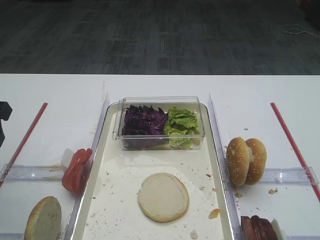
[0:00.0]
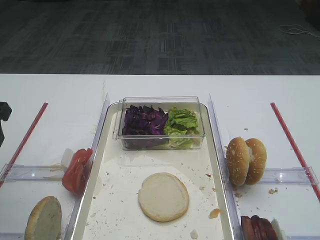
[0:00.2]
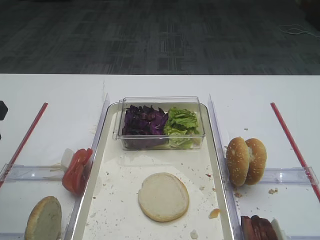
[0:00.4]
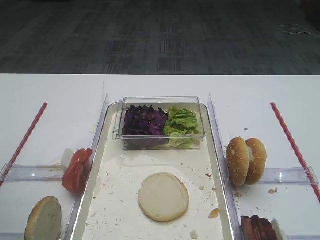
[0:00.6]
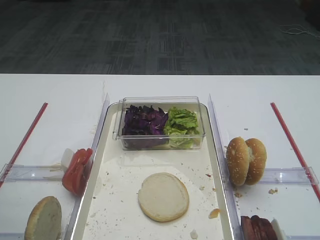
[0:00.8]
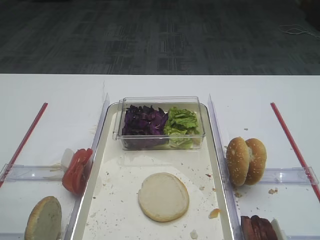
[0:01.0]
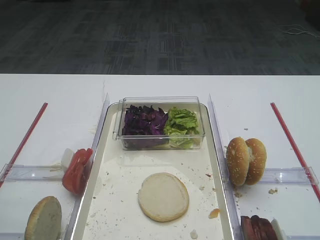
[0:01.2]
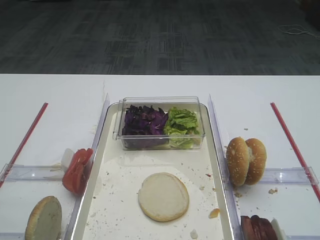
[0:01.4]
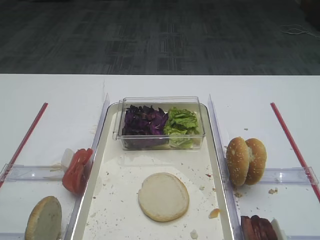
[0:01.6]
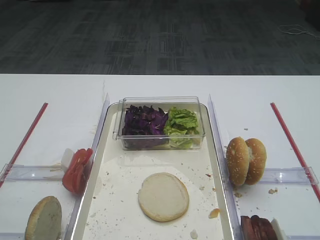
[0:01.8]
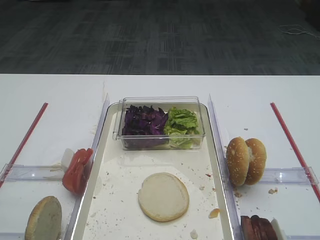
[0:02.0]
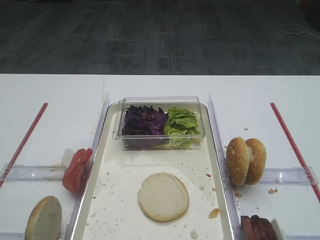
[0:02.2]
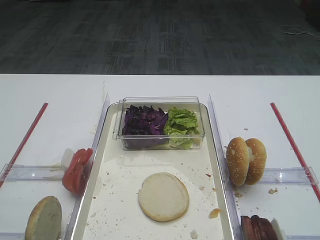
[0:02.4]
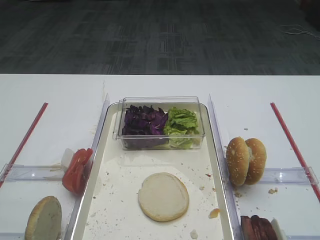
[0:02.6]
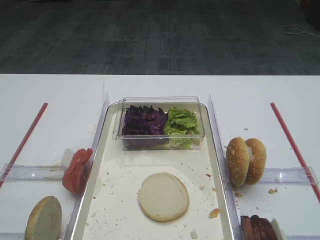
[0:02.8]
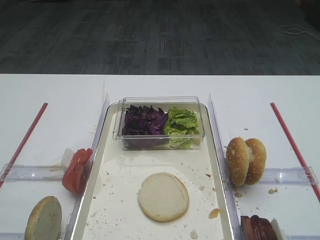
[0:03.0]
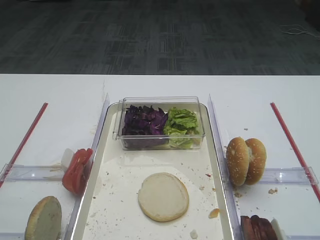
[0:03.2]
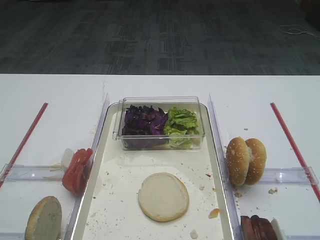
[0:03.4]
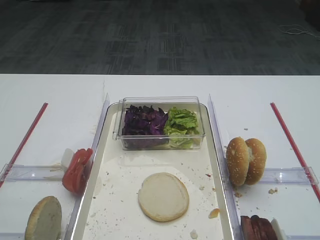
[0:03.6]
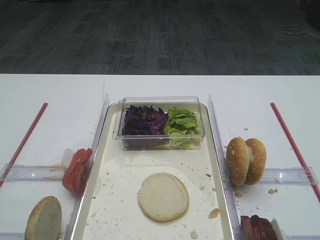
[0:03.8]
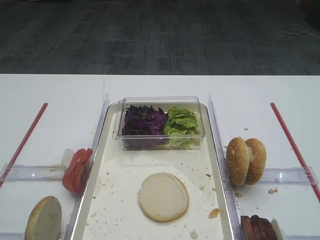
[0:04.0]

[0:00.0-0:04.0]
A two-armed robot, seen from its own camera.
0:00.0 to 0:01.4: The left gripper is displaced backward by about 15 cm.
0:02.6 to 0:04.0: Both grippers stay about where they are.

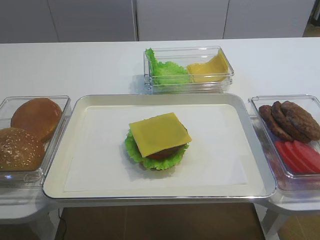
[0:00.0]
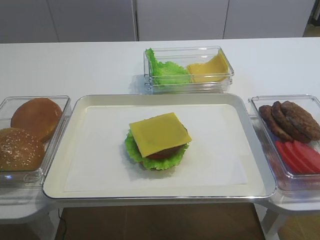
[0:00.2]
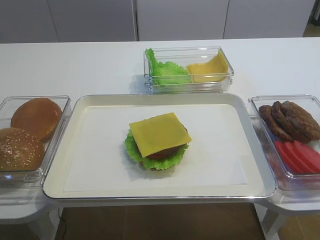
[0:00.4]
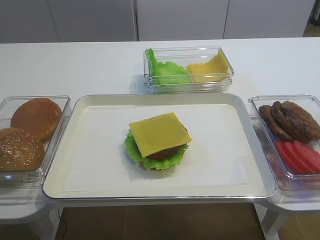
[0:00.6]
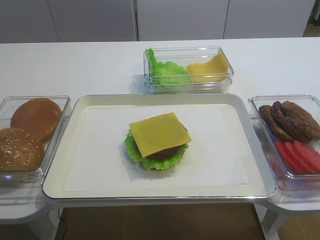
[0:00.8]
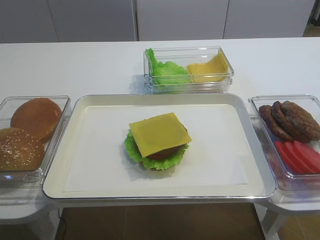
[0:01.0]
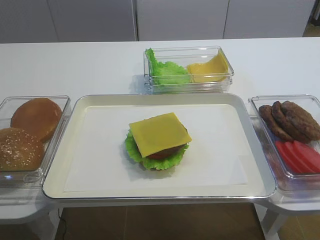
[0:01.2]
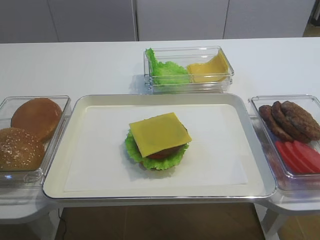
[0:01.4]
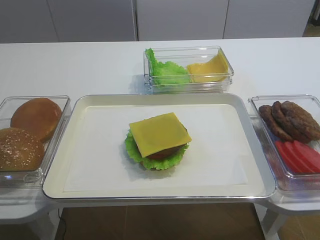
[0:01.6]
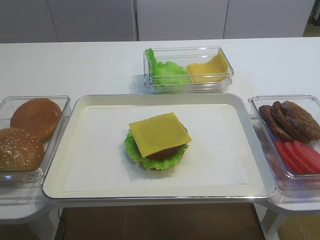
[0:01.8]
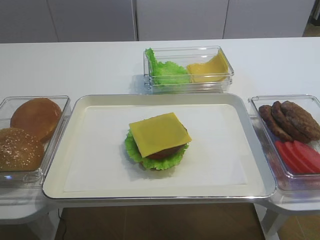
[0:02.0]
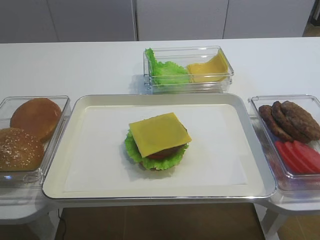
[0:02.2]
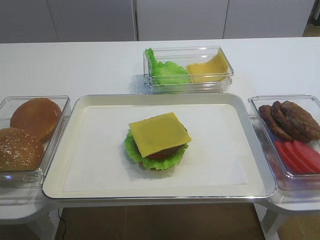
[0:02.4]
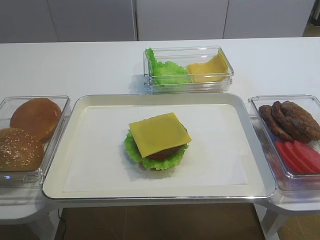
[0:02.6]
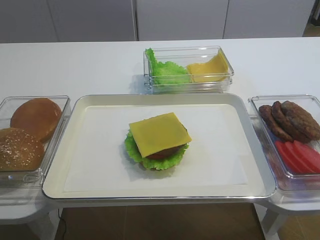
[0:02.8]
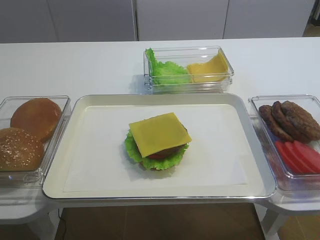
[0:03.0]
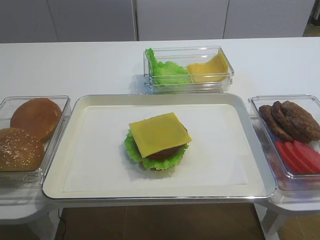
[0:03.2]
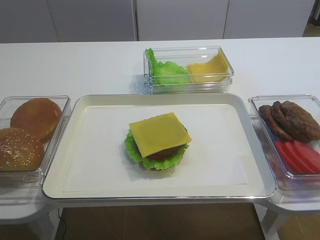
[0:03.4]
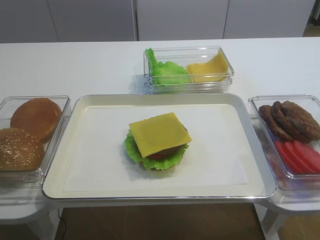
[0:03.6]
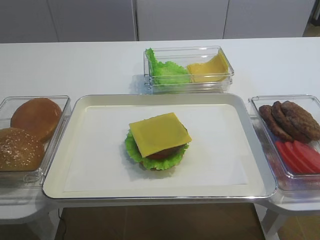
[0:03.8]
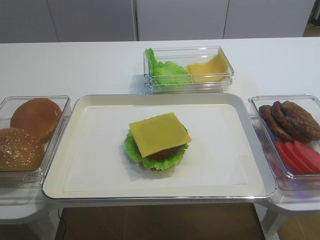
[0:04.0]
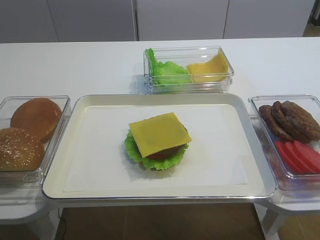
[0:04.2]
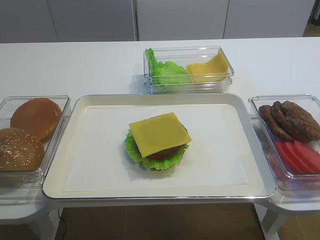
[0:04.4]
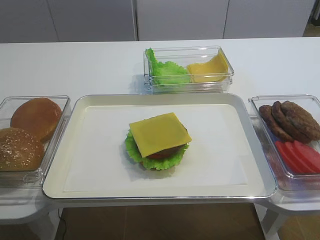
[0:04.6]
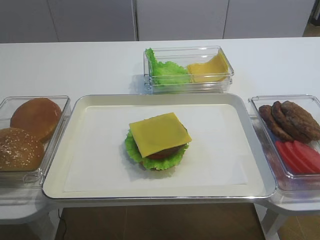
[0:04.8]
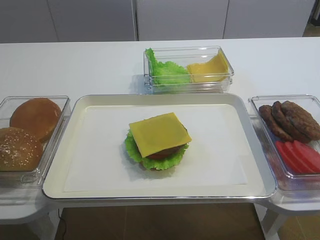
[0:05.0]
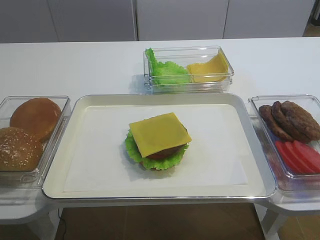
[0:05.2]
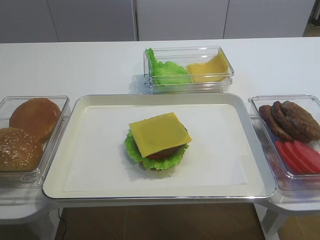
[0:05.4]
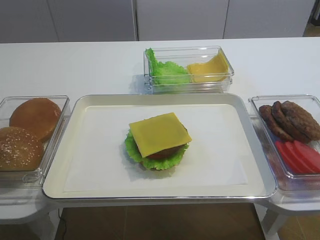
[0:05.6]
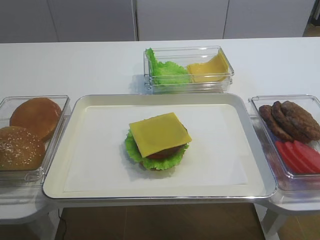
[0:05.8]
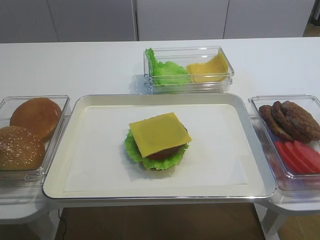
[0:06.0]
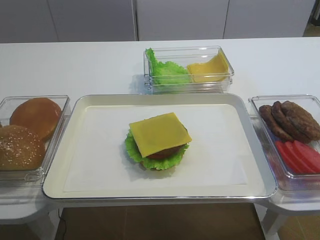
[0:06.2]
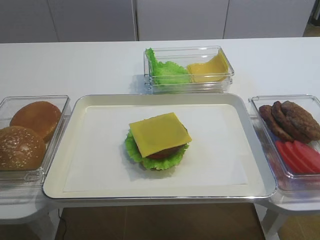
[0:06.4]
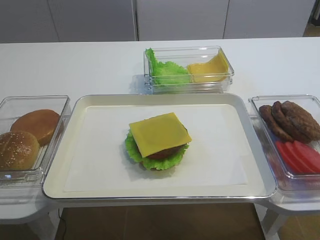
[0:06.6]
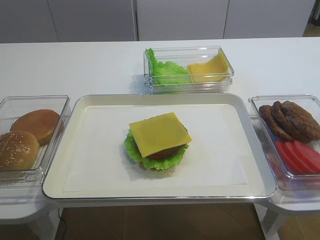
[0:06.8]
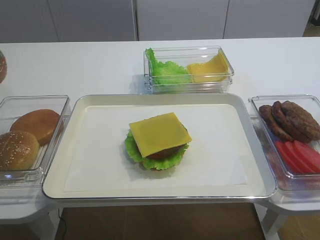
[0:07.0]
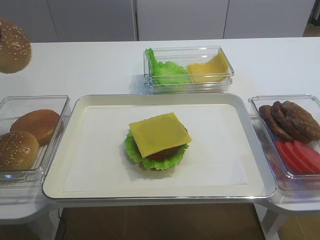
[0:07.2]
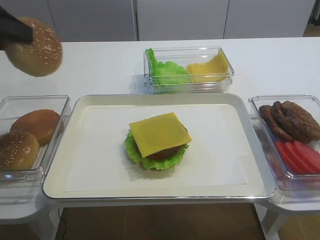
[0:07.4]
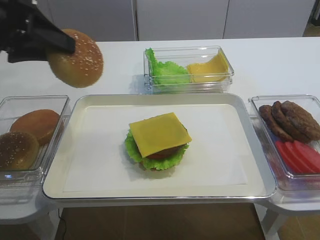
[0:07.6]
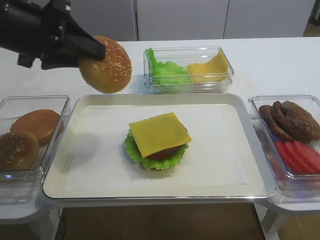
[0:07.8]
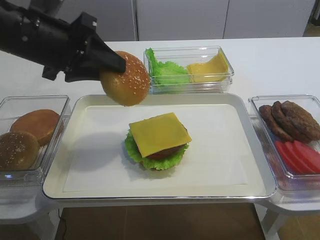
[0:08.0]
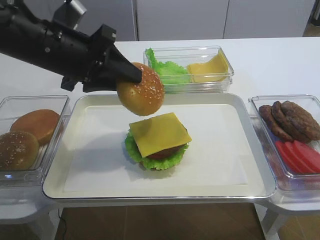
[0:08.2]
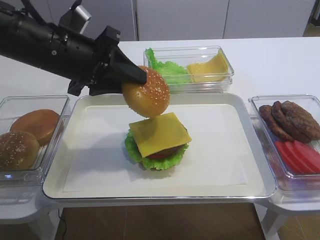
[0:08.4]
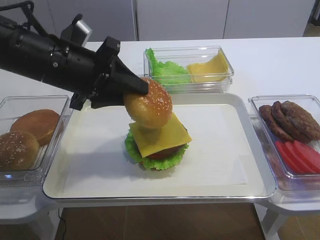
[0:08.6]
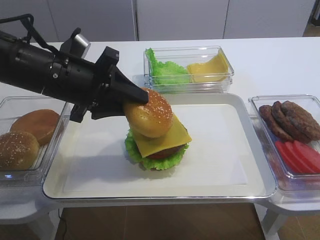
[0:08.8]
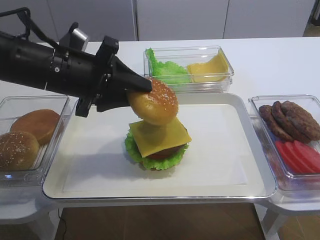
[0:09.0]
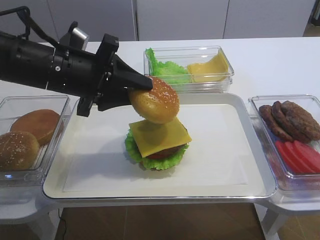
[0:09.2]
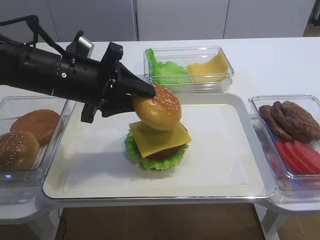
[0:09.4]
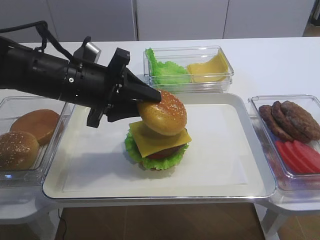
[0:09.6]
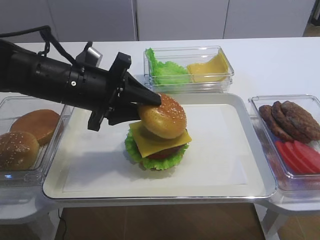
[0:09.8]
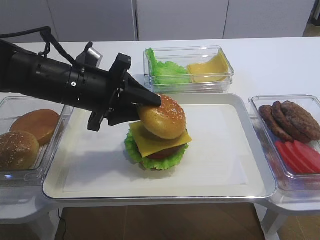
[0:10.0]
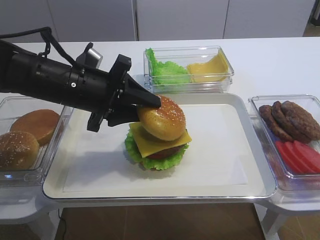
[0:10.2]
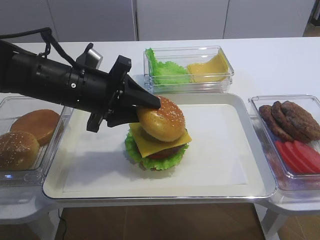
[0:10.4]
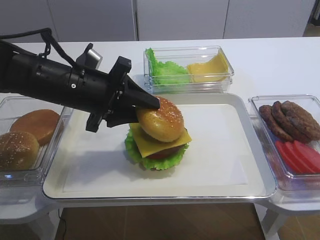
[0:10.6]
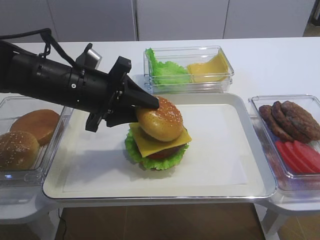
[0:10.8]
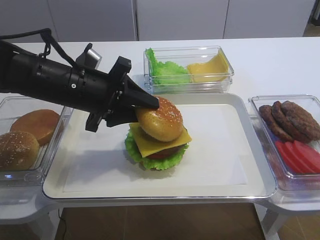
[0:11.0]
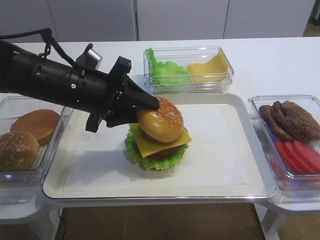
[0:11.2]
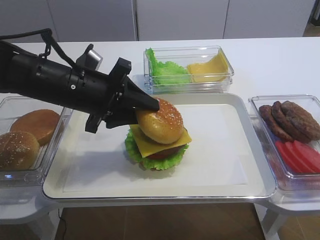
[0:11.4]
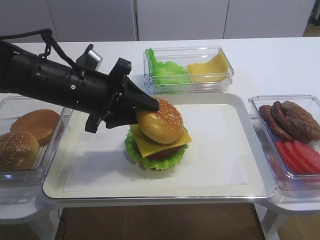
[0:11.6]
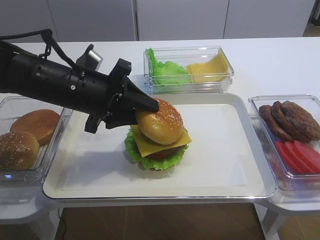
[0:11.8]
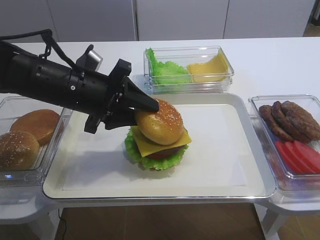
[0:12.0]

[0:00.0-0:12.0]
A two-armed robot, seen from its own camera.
Step, 0:00.0 to 0:07.0: Pick up the hamburger lid with the left gripper.
0:04.4 to 0:06.0: Both grippers stay about where they are.
0:06.0 to 0:07.6: The left gripper shifts about 15 cm to the right and upward.
0:07.6 to 0:09.0: The left gripper travels to the right and downward by some 10 cm.
0:09.0 to 0:10.4: There are only small adjustments of the grippers.
0:10.4 to 0:12.0: Both grippers stay about where they are.

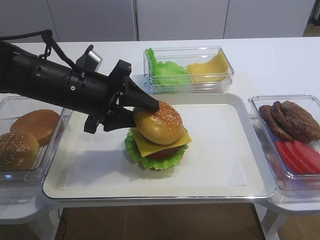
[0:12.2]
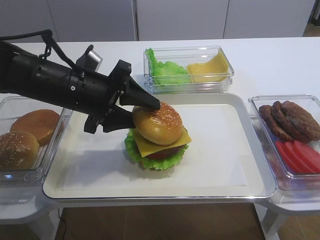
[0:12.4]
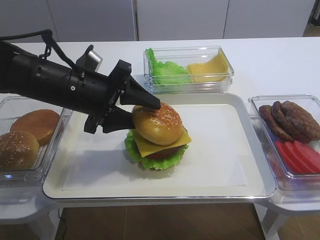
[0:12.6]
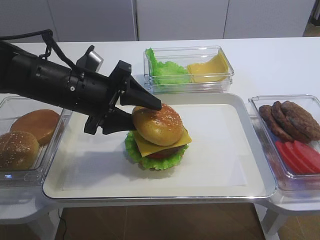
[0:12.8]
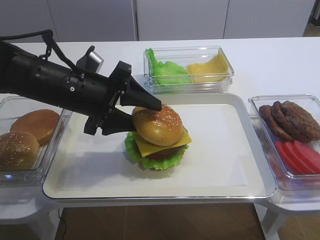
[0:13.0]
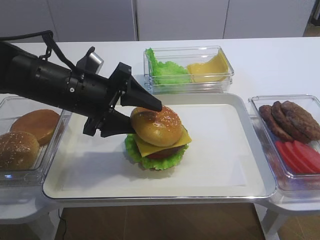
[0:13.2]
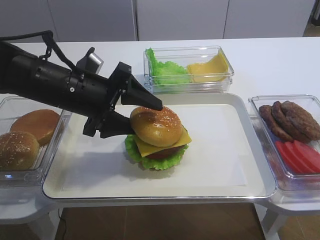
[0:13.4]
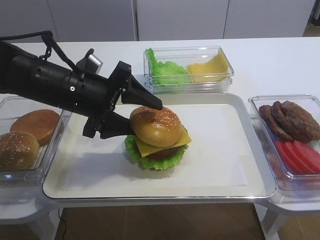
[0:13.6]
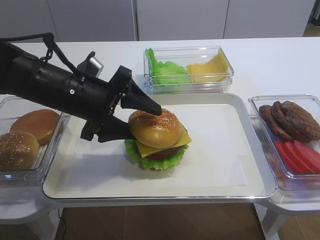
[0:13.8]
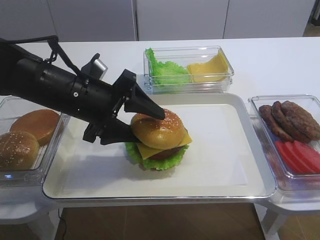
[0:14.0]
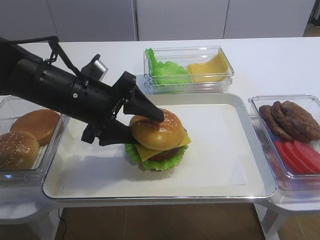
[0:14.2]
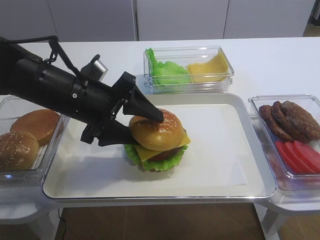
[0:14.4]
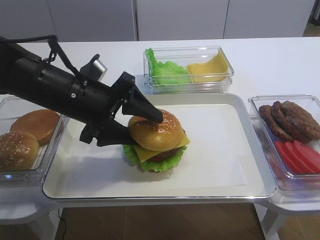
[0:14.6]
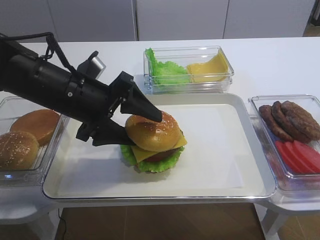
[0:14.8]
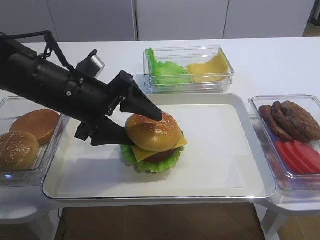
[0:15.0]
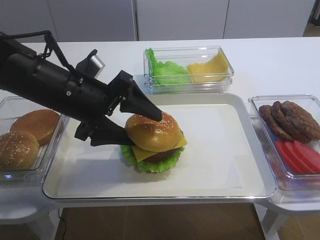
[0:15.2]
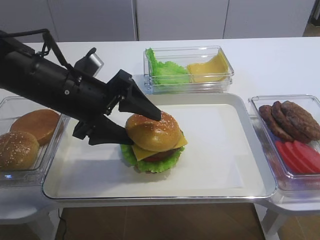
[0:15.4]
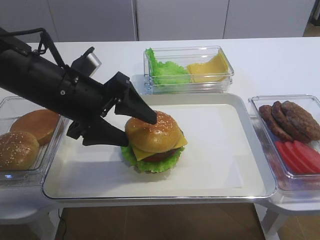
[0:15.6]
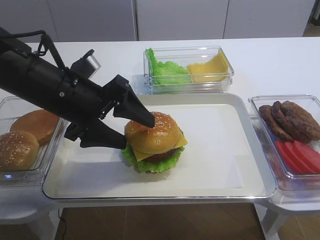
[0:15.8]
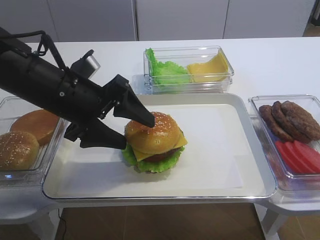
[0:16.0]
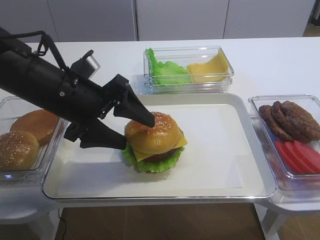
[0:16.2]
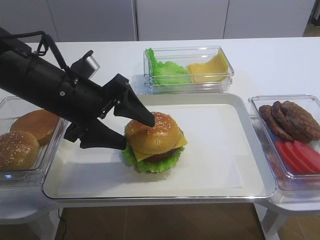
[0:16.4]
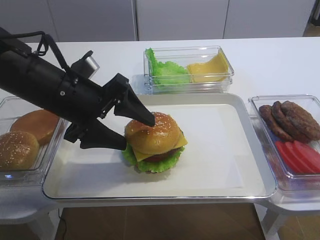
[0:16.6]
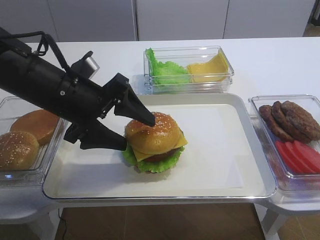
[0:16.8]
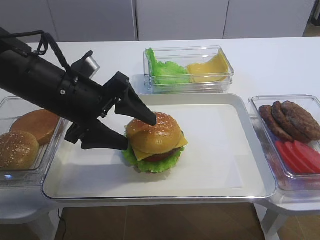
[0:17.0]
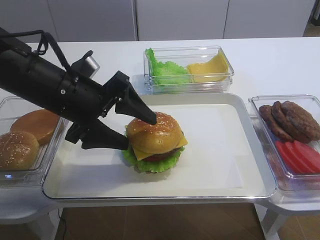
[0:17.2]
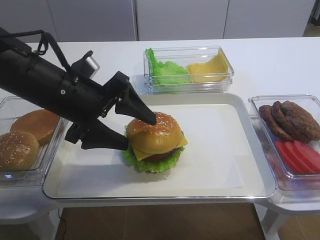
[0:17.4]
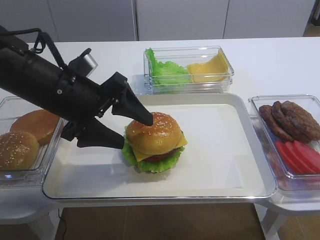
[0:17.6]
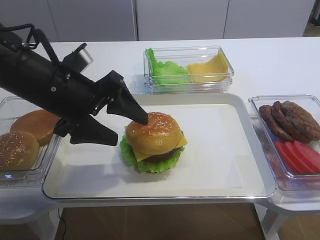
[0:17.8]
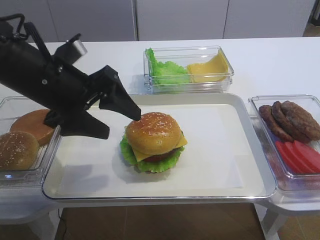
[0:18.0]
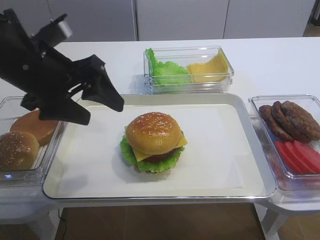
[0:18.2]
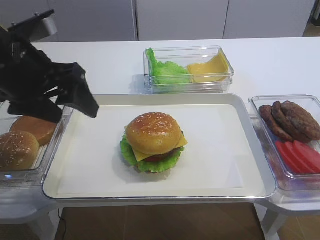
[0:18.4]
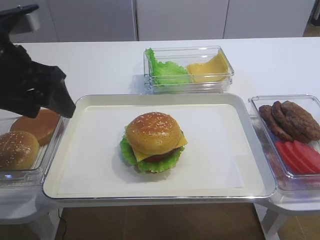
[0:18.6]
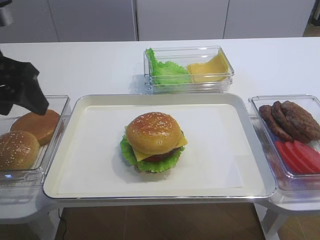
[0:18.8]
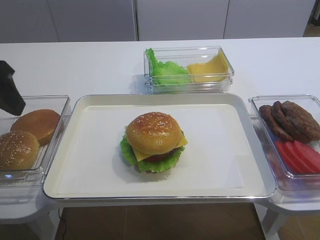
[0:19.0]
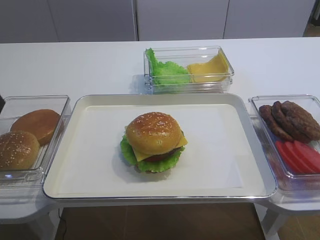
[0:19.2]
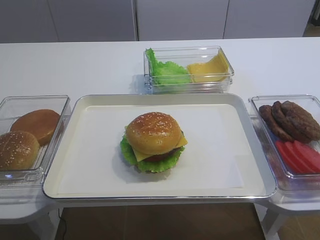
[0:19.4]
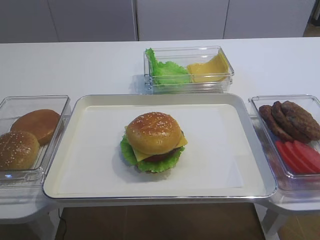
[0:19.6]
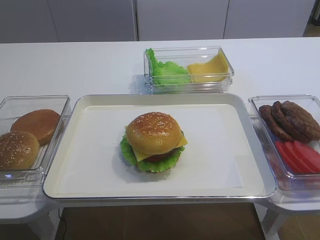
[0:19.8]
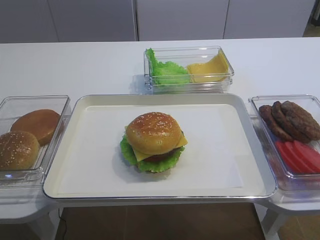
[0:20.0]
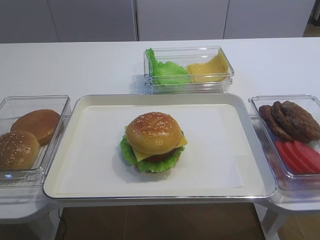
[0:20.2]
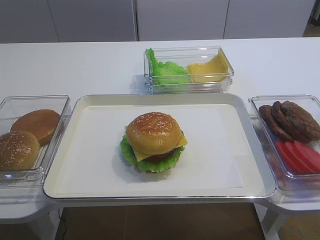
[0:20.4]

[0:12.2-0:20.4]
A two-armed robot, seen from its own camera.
Step, 0:12.2 to 0:17.8: Place the hamburger lid on the cheese slice with the left gripper.
0:12.2 to 0:13.8: The left gripper opens its fingers.
0:13.8 to 0:17.2: The grippers make only small movements.
0:17.2 to 0:18.8: The left gripper travels to the left and upward by approximately 15 cm.
0:18.8 to 0:20.4: The left gripper is displaced backward by roughly 25 cm.
